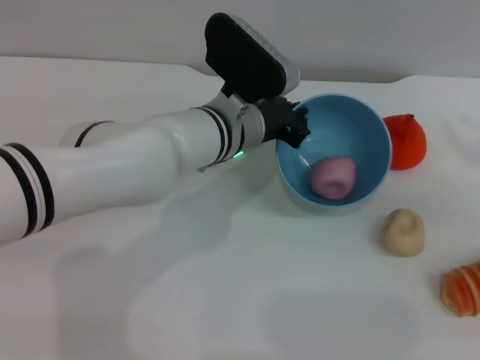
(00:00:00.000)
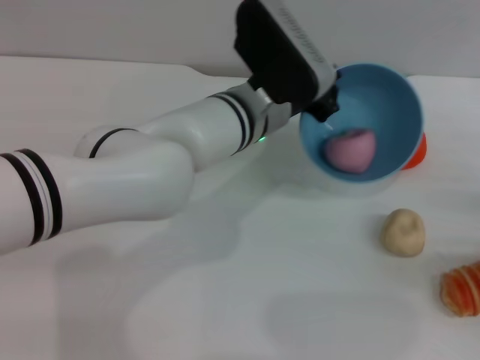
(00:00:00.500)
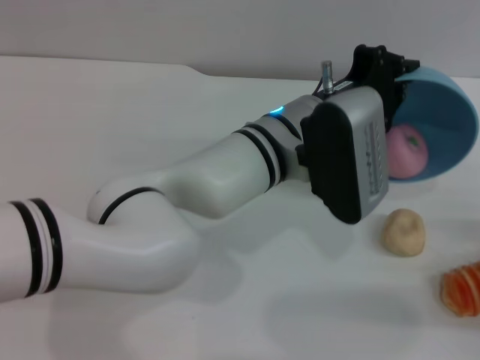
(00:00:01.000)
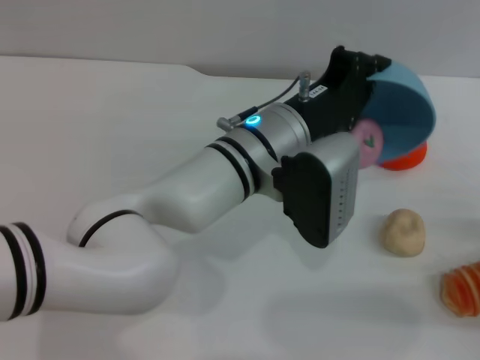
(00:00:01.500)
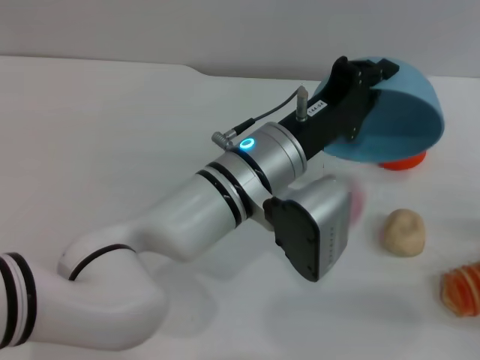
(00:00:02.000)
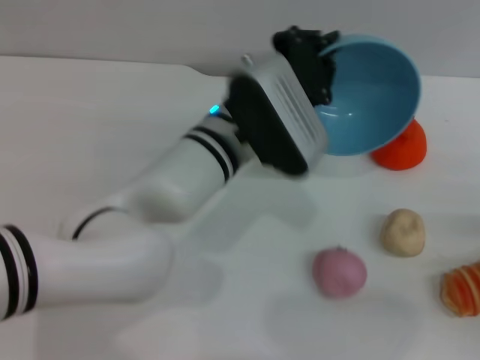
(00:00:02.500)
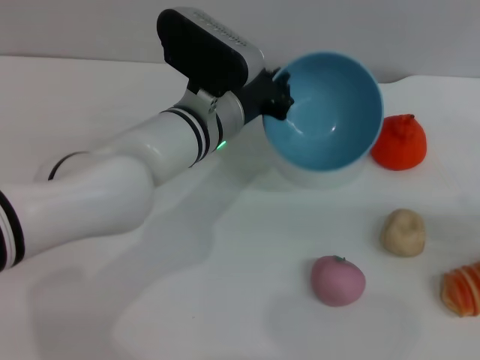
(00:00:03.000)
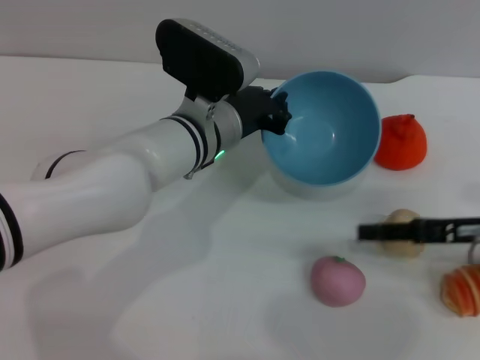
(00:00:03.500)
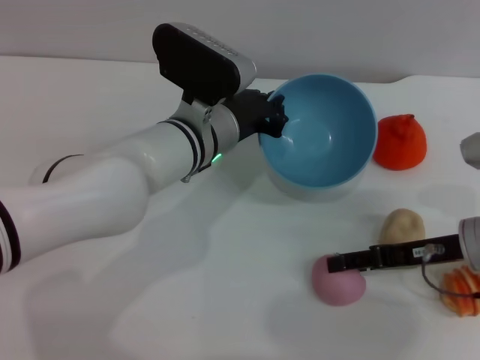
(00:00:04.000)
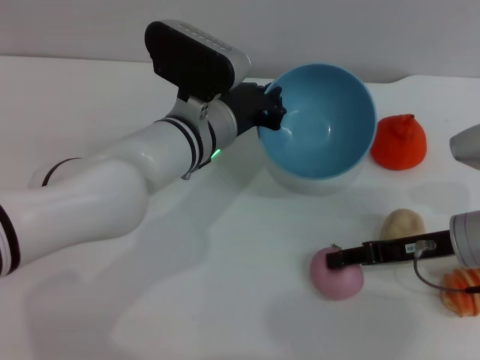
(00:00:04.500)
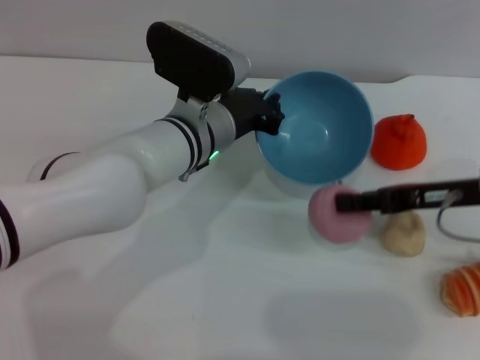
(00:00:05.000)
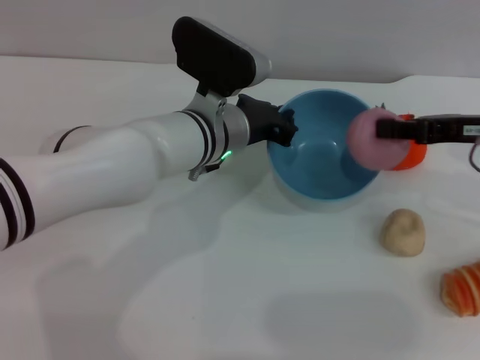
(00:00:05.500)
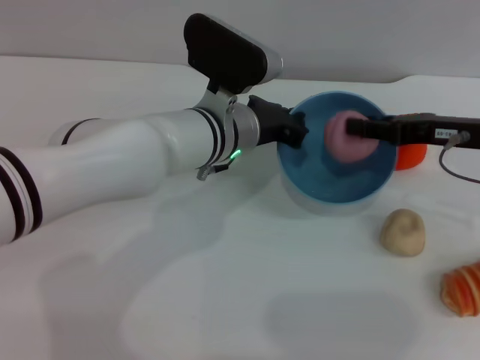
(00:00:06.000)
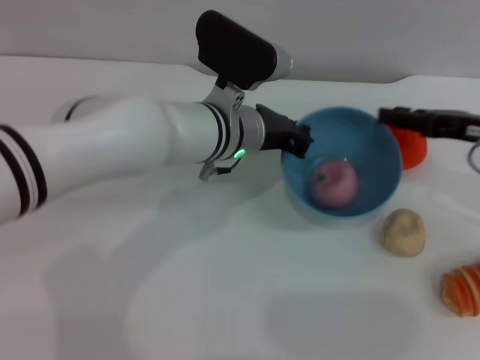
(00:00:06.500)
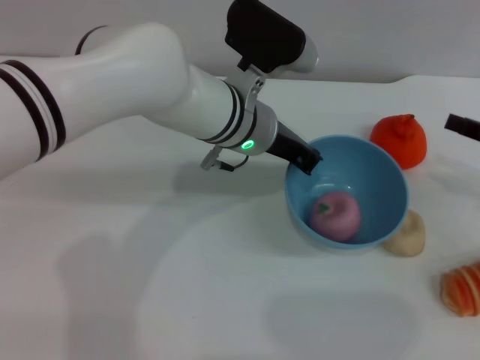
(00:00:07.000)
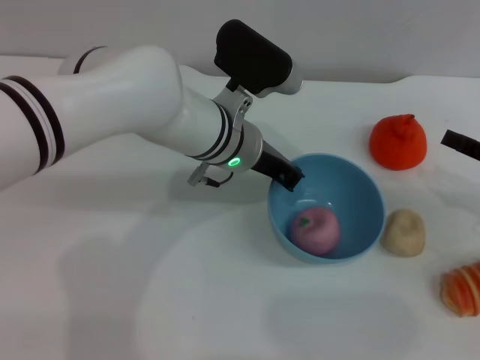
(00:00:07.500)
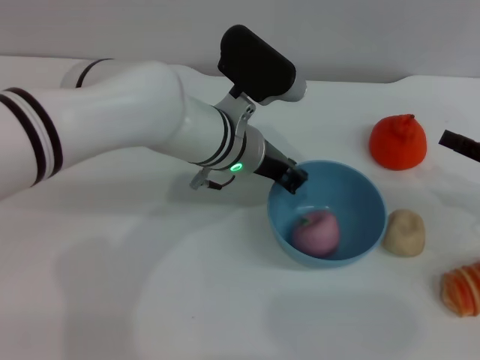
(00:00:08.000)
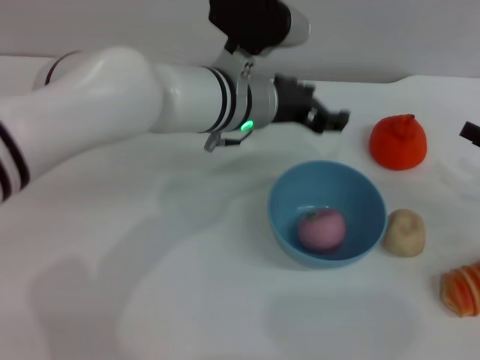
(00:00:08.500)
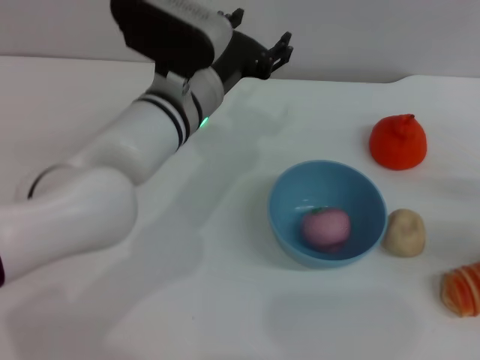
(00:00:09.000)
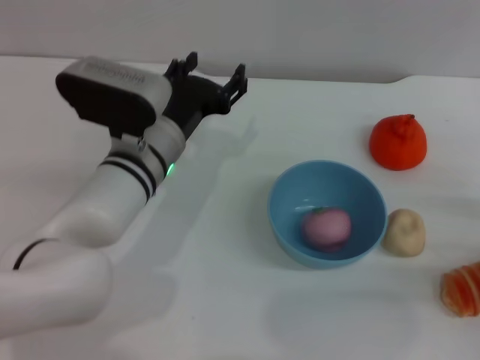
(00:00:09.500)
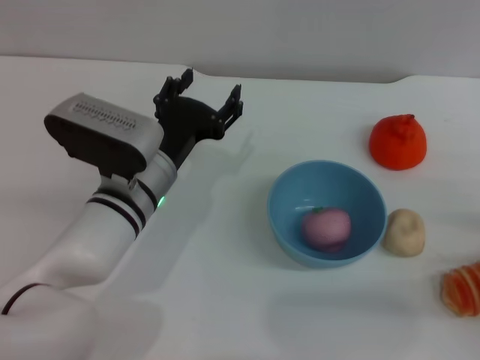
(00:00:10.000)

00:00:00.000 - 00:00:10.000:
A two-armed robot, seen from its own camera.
Task of the whole recording: put the peach into the blue bowl and pour it out repeatedly.
Step, 00:00:00.000 - 00:00:02.000: Pour the peach out of bowl.
Step, 00:00:02.500 - 00:00:05.000: Pick up the peach with the right gripper.
Step, 00:00:05.500 - 00:00:06.000: Place the peach into the bowl.
Step, 00:00:07.000 - 00:00:08.000: Place the bowl on the table.
00:00:00.000 - 00:00:02.000: The right gripper shifts approximately 15 cm backward and downward. Meanwhile the left gripper goes about 5 cm backward.
00:00:02.000 - 00:00:04.000: The left gripper is displaced forward and to the left by about 10 cm. The right gripper travels to the left and forward by approximately 15 cm.
00:00:04.000 - 00:00:06.000: The right gripper travels upward and forward by some 10 cm, and closes up.
00:00:06.000 - 00:00:08.000: The right gripper shifts roughly 10 cm to the right and backward.
00:00:08.000 - 00:00:10.000: The right gripper is displaced backward and downward by roughly 10 cm, and opens; the left gripper travels to the left and backward by approximately 10 cm, and opens up.
